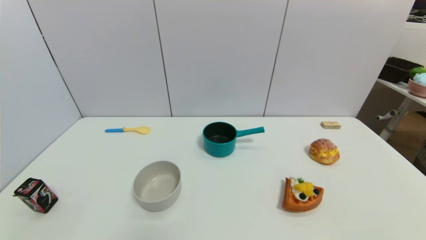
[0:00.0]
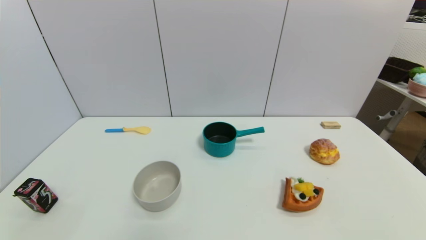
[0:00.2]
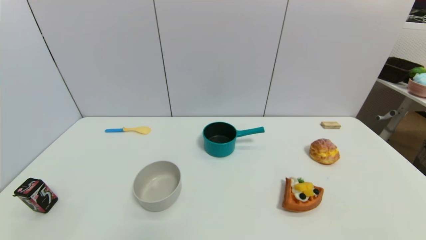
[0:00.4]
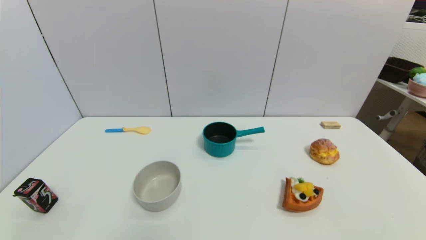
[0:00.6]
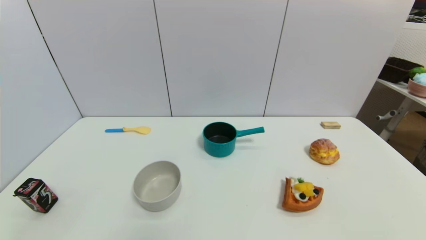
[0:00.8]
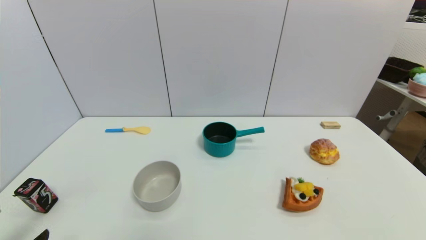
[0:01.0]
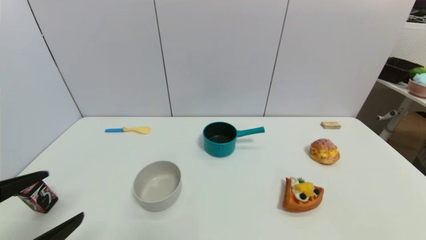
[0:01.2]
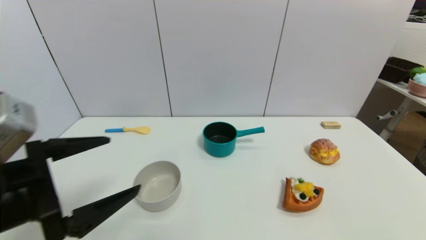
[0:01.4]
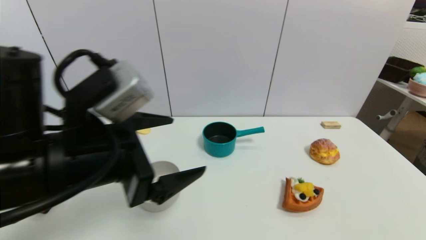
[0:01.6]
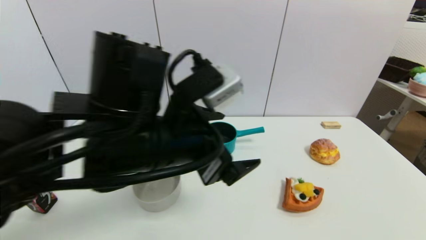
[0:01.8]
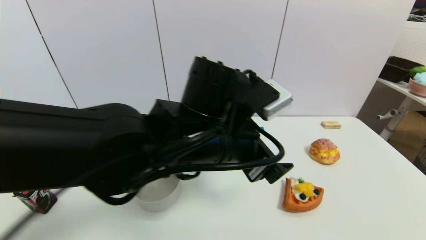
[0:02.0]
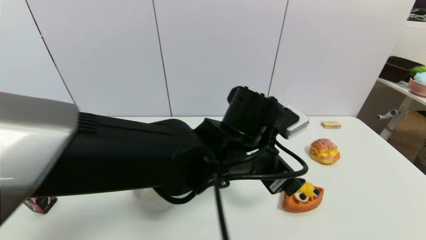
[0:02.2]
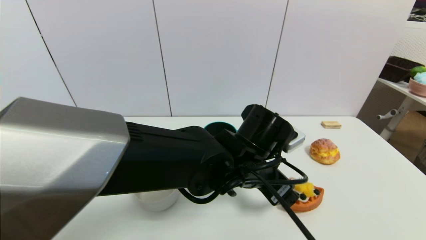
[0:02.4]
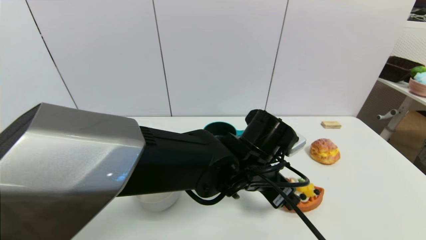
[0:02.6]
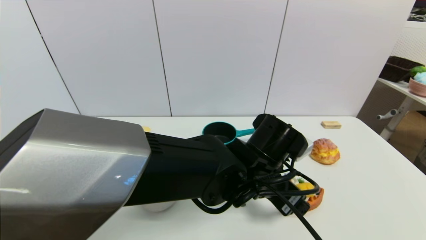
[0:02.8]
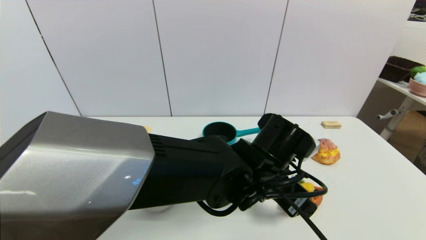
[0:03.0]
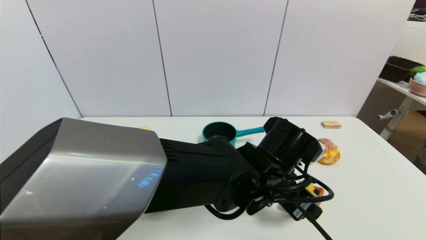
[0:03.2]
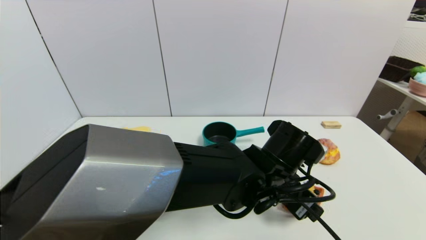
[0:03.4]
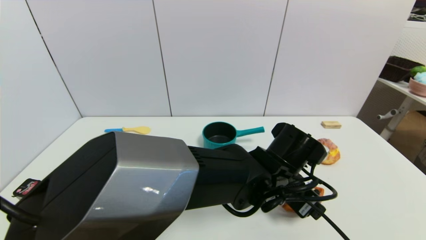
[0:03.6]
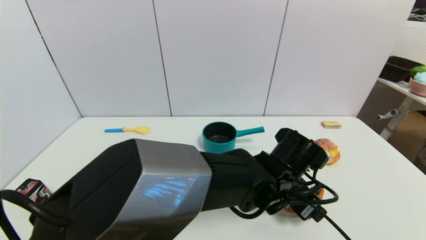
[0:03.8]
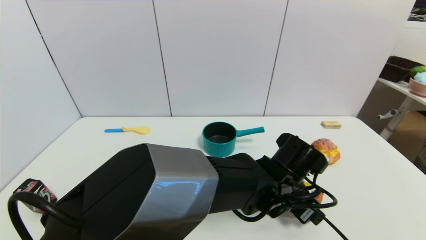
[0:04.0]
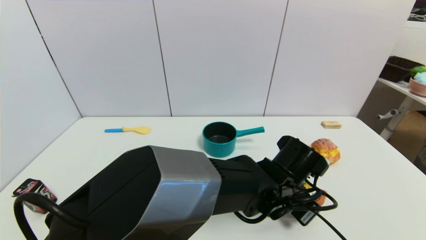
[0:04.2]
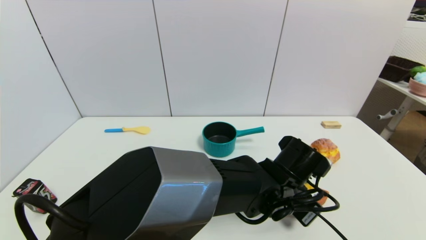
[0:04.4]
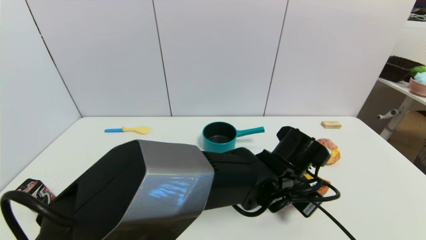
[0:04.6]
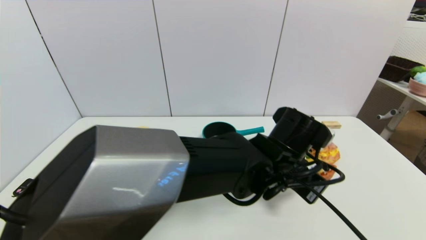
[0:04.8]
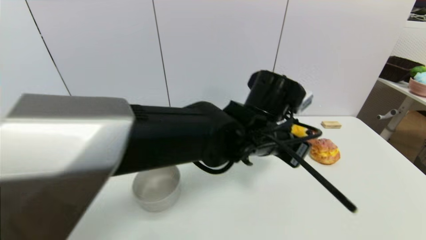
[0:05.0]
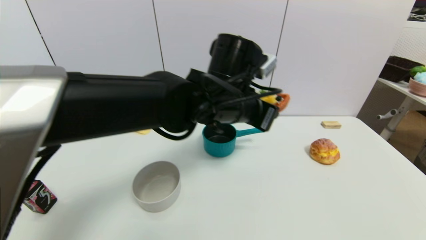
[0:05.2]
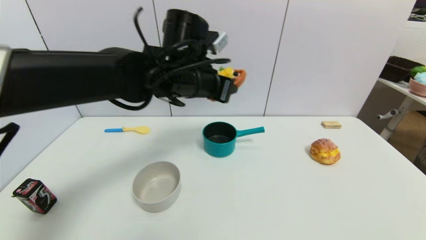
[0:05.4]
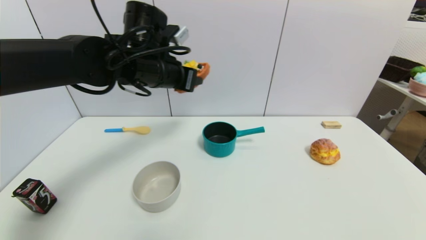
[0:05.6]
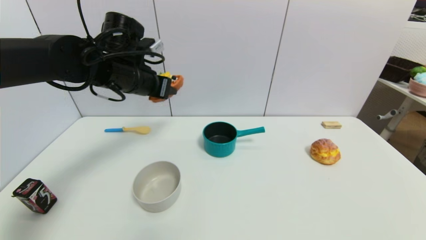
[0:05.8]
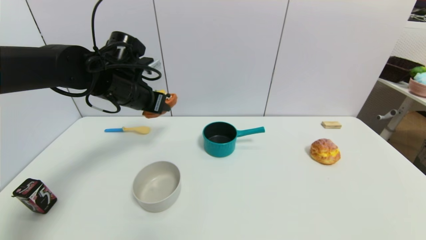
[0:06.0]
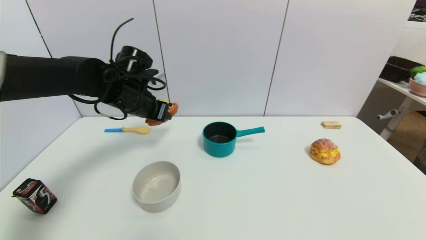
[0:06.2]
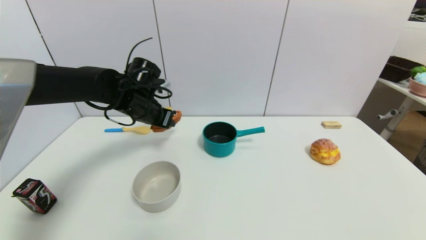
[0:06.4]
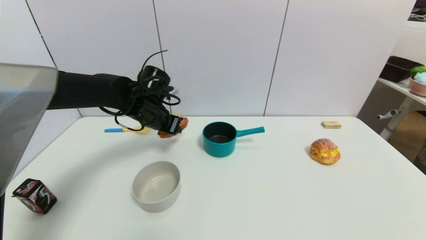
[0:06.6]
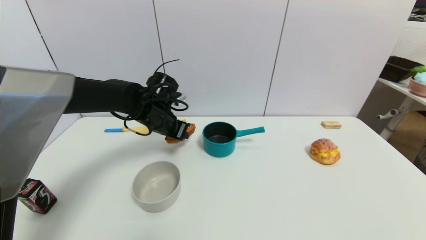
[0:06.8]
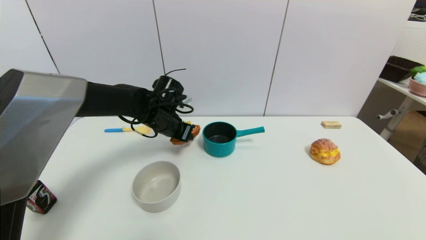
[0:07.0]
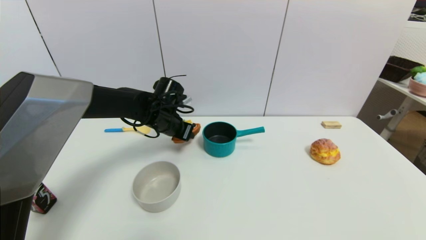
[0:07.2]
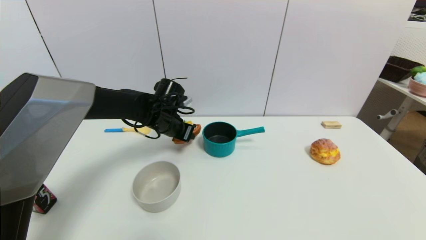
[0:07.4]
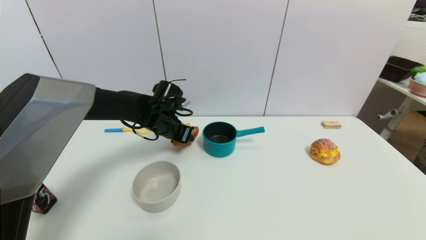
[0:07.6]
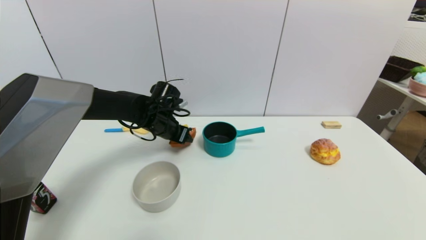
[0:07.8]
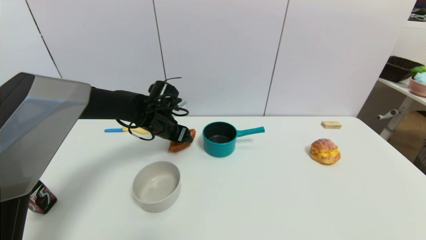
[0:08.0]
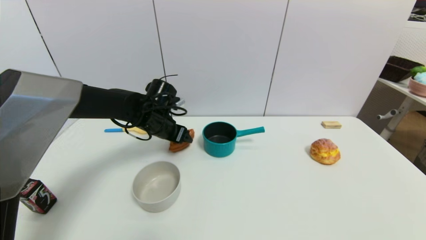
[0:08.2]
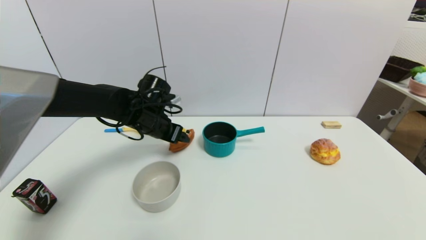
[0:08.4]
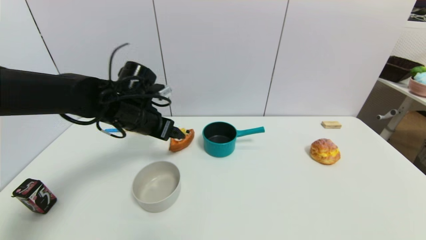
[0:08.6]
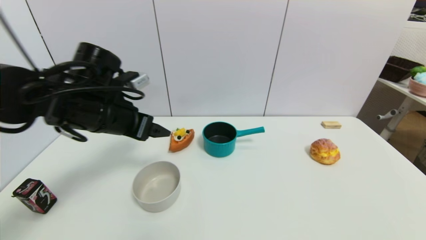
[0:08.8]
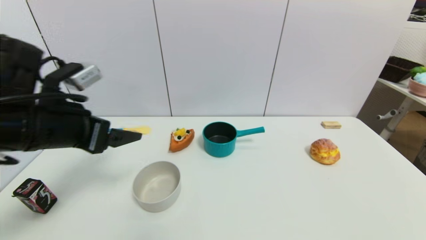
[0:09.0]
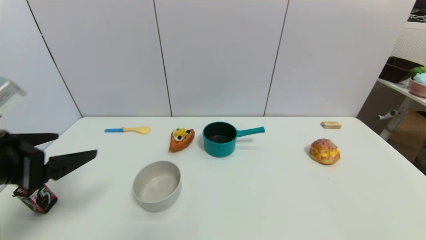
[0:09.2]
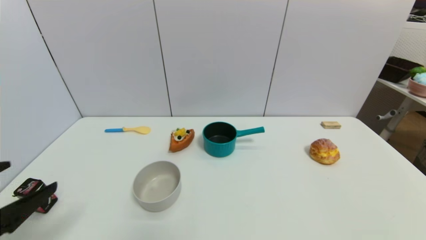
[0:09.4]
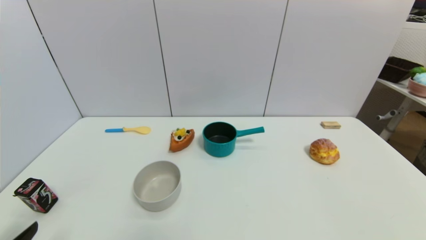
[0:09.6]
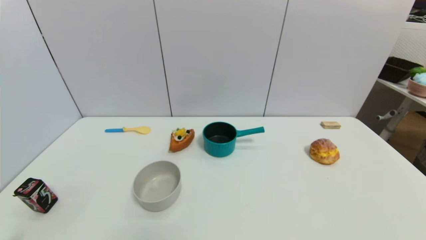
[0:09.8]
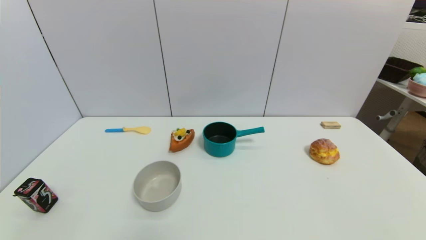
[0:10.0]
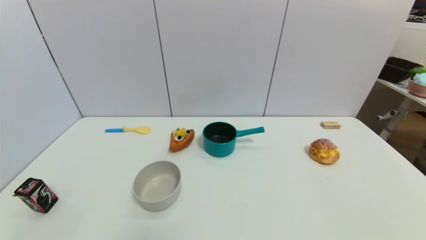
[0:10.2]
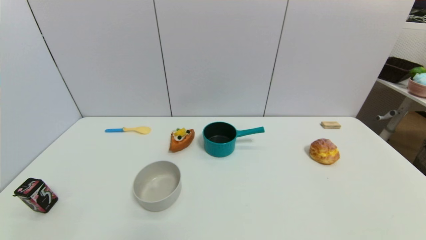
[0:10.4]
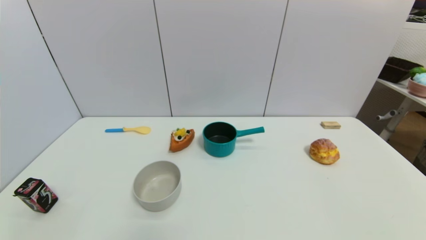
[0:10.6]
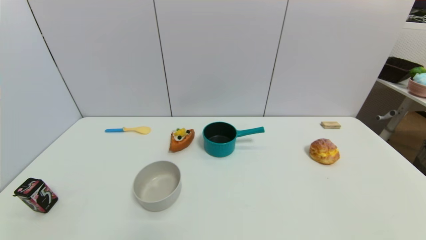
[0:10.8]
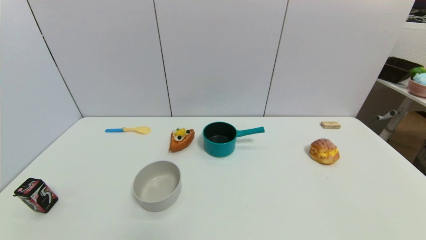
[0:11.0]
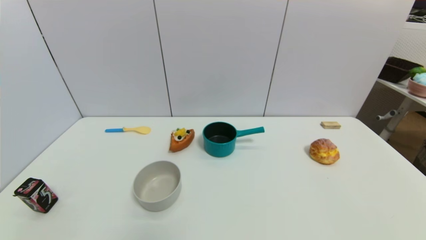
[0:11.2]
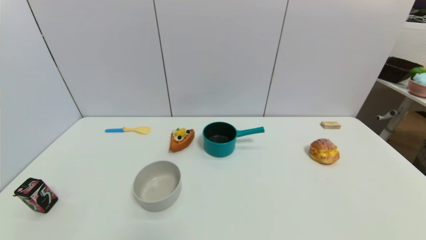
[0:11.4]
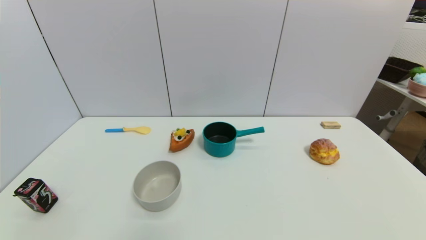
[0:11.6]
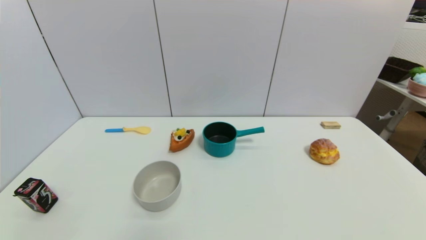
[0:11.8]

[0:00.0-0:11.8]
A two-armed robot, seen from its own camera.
Step, 0:01.0 to 0:04.6: Grasp the pizza with left gripper.
Step, 0:04.8 to 0:08.2: Place the pizza on the table with left gripper.
0:00.0 to 0:01.4: The left gripper shifts some 20 cm upward, forward and to the right.
0:01.4 to 0:03.0: The left gripper shifts approximately 30 cm to the right.
0:03.0 to 0:04.4: The left gripper moves downward, about 5 cm, and closes its fingers.
0:04.4 to 0:06.0: The left gripper travels to the left, upward and forward by roughly 35 cm.
0:06.0 to 0:07.4: The left gripper moves downward and to the right, about 10 cm.
0:07.4 to 0:08.8: The left gripper heads backward, upward and to the left, covering approximately 15 cm, and opens.
0:08.8 to 0:10.4: The left gripper goes some 35 cm backward and downward.
0:10.4 to 0:11.8: Both grippers stay put.
